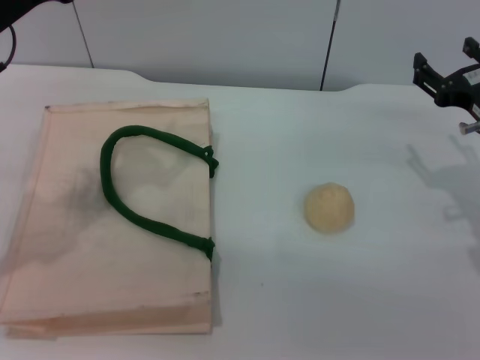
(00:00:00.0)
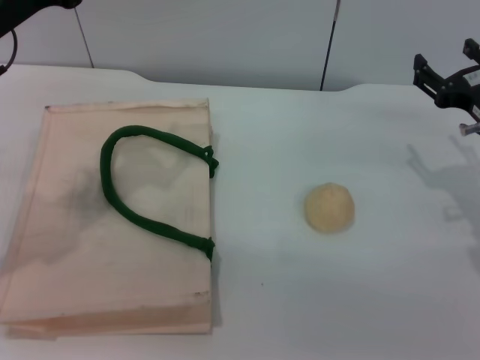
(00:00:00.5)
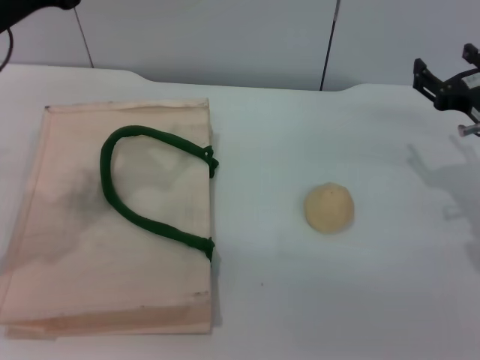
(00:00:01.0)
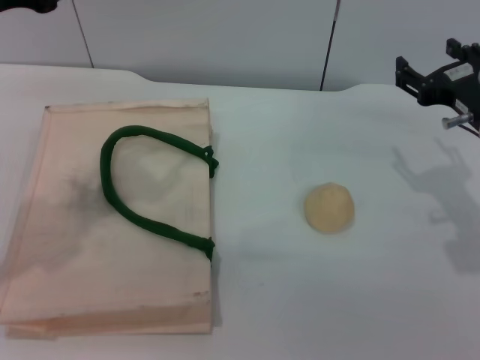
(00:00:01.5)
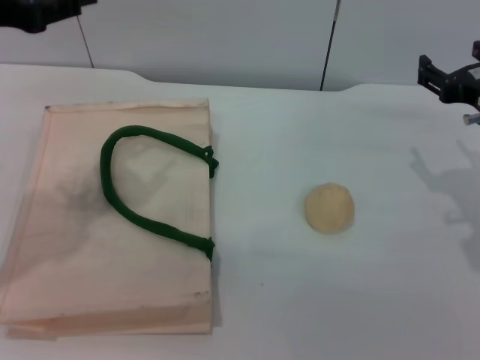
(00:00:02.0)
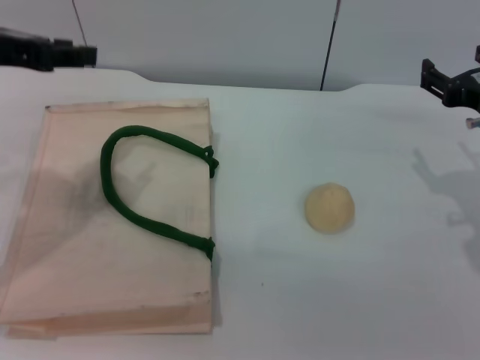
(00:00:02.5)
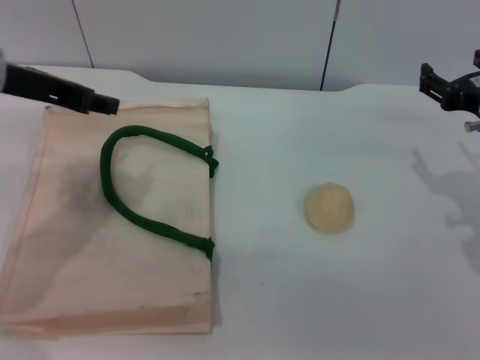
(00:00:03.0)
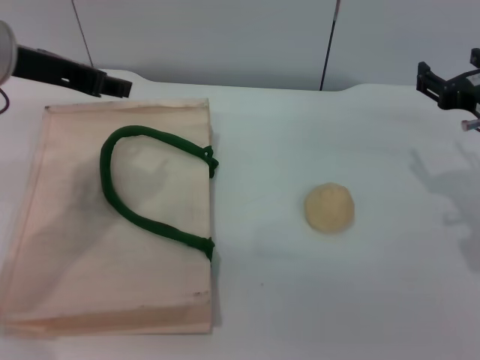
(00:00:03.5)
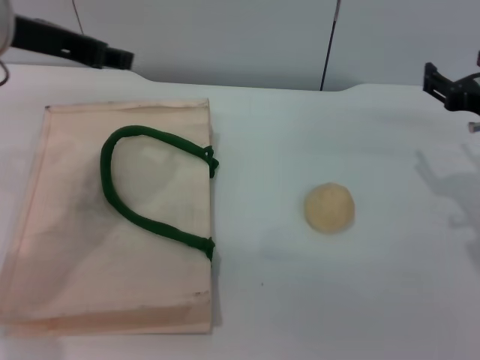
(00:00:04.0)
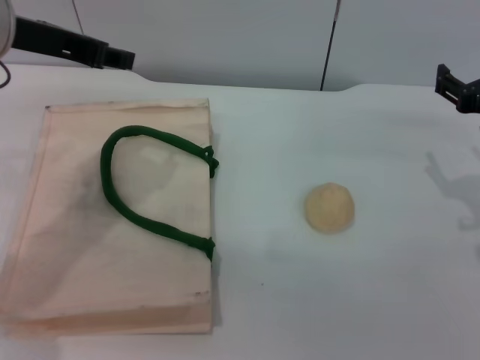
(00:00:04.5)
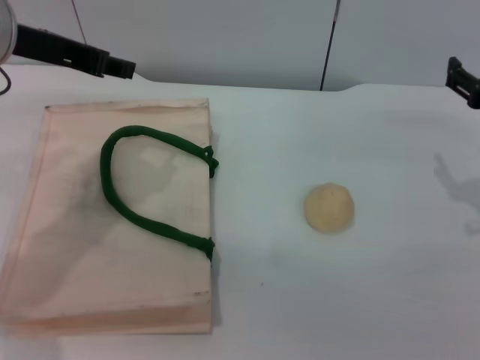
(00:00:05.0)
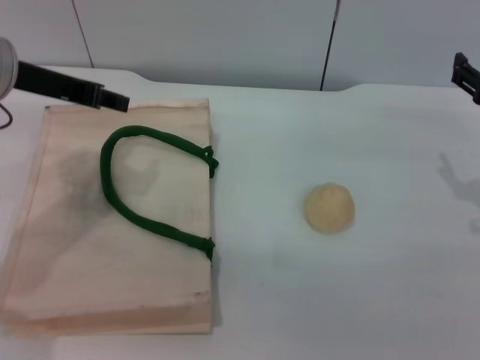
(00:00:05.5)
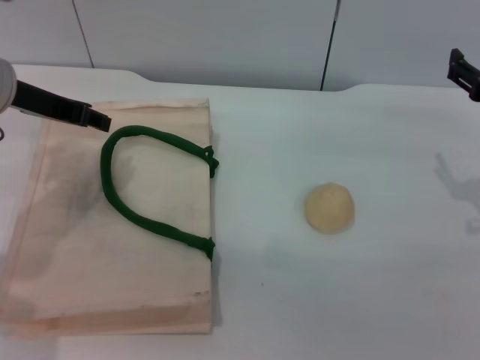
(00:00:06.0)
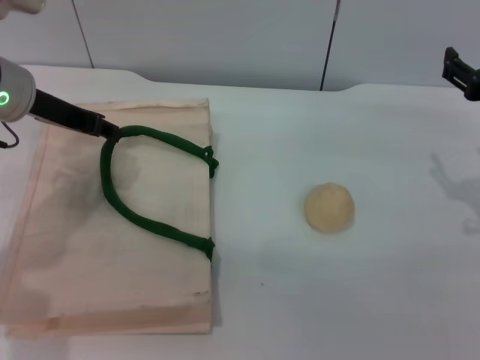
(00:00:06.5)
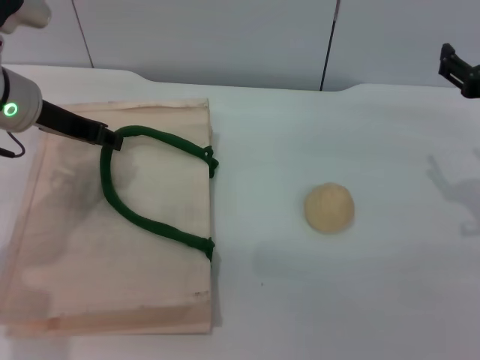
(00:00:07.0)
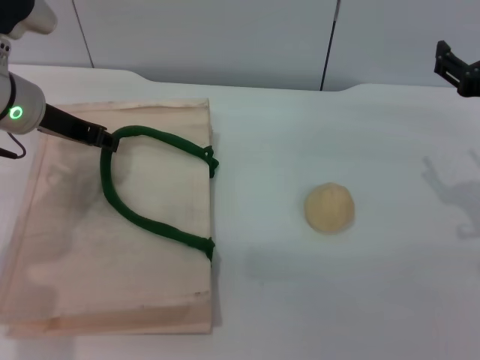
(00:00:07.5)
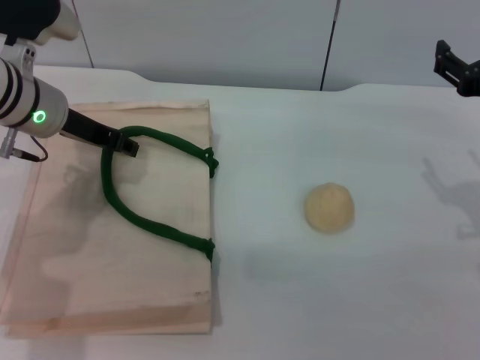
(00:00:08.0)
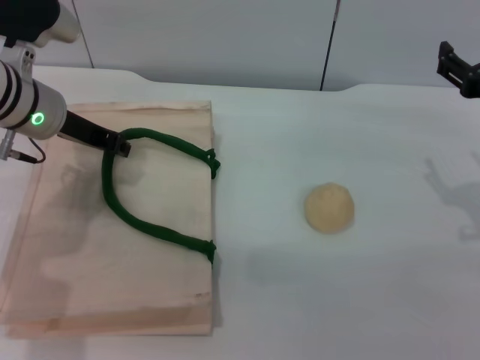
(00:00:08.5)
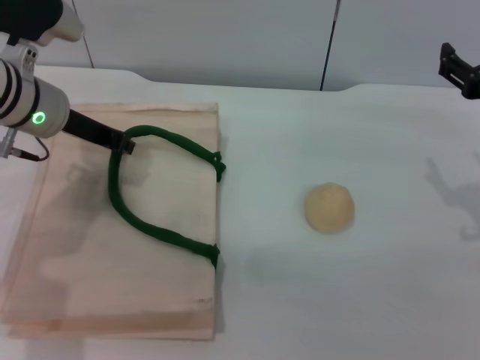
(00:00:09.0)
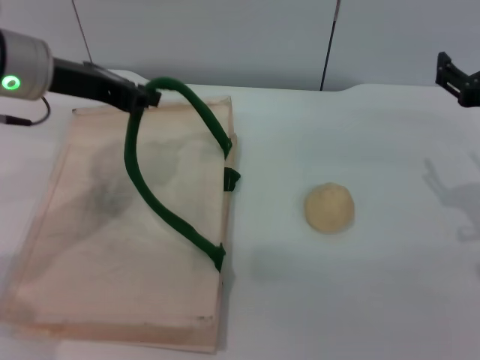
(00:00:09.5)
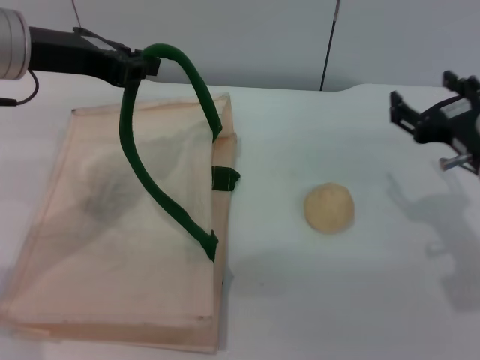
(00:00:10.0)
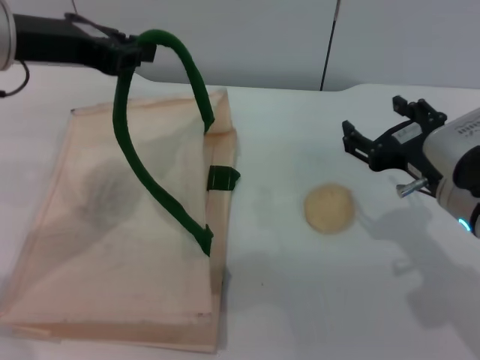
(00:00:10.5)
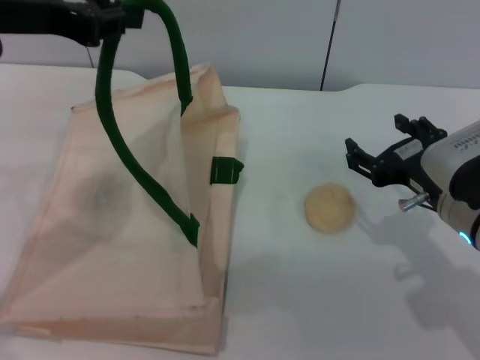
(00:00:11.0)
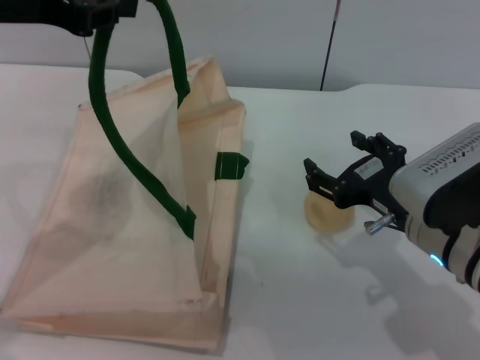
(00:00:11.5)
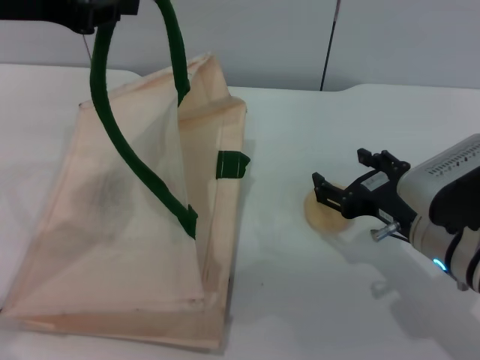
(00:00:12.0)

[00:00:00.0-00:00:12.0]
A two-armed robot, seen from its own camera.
Task of the whole recording: pick up the egg yolk pastry from the table and place it in the white handbag.
Step, 00:00:00.0 to 00:00:09.5: Lift the woven bag with the left gripper to open it.
00:00:00.0 to 00:00:02.0: The left gripper is displaced upward by some 5 cm.
00:00:02.0 to 00:00:04.0: The left gripper moves to the right, roughly 5 cm.
00:00:04.0 to 00:00:06.0: The left gripper travels downward by some 5 cm.
00:00:06.0 to 00:00:08.0: The left gripper moves approximately 5 cm.
00:00:08.0 to 00:00:10.0: The left gripper goes about 10 cm upward, and closes up.
00:00:10.0 to 00:00:12.0: The left gripper heads upward, covering roughly 5 cm. The right gripper moves roughly 5 cm.

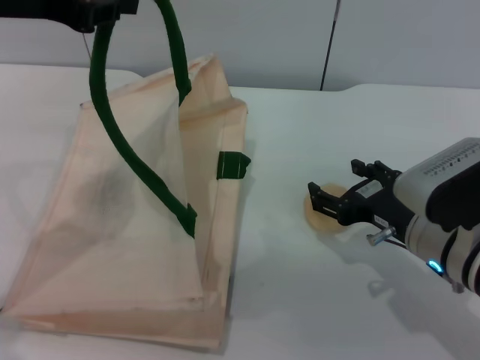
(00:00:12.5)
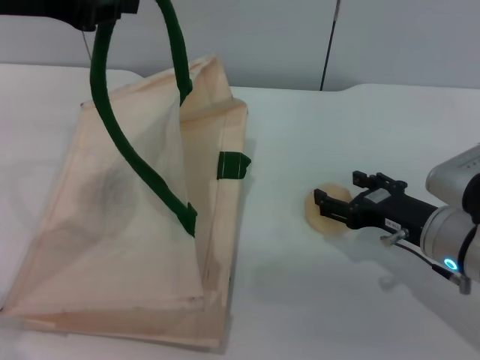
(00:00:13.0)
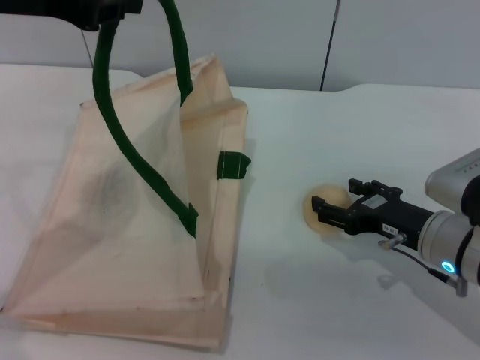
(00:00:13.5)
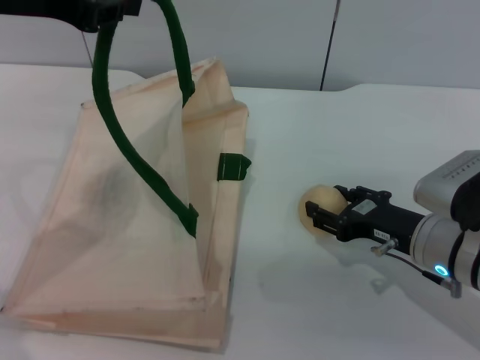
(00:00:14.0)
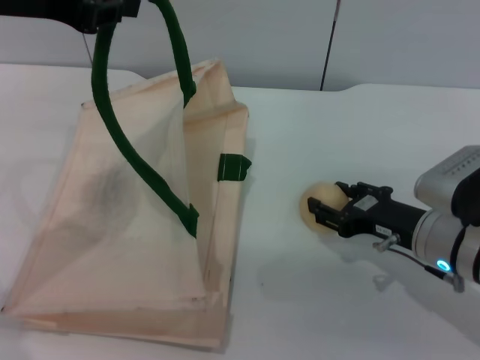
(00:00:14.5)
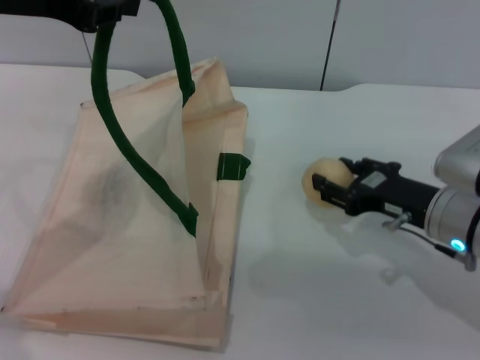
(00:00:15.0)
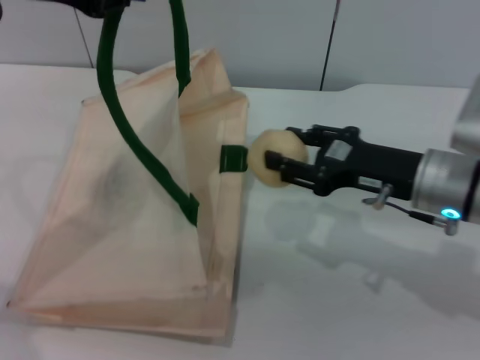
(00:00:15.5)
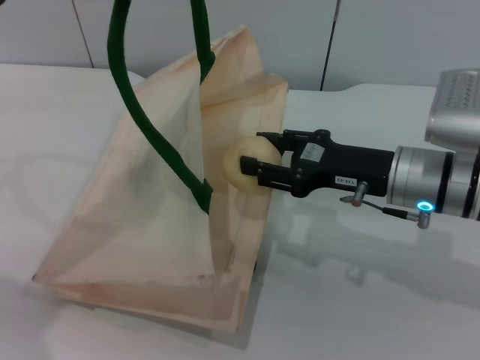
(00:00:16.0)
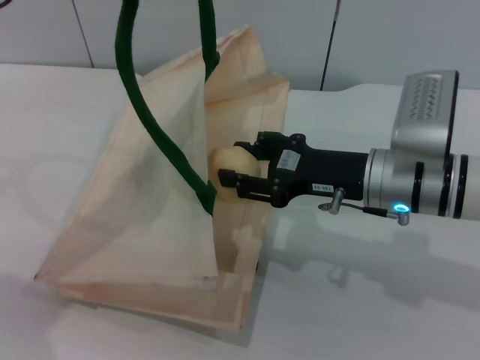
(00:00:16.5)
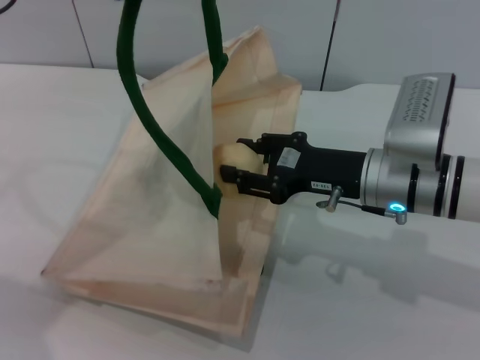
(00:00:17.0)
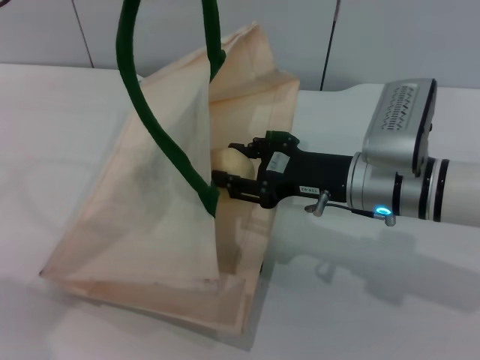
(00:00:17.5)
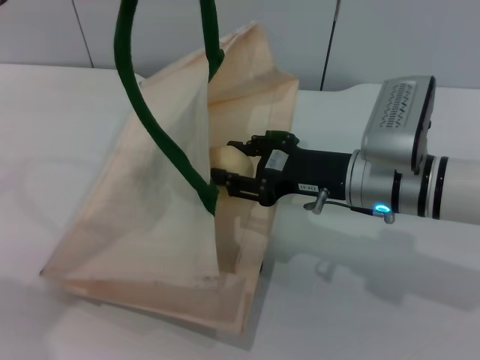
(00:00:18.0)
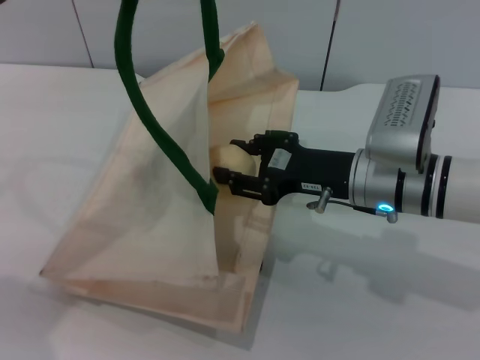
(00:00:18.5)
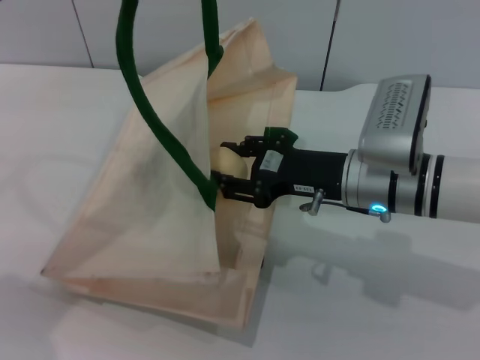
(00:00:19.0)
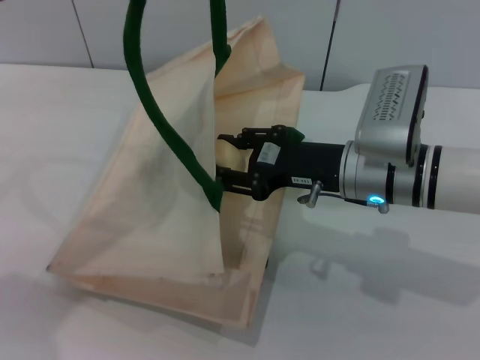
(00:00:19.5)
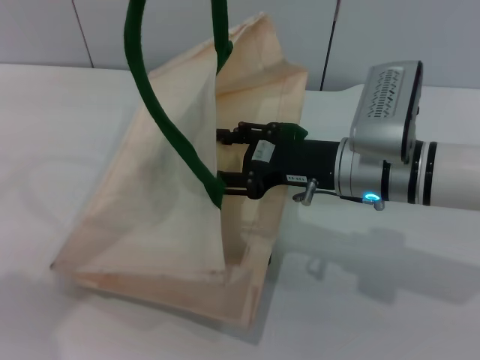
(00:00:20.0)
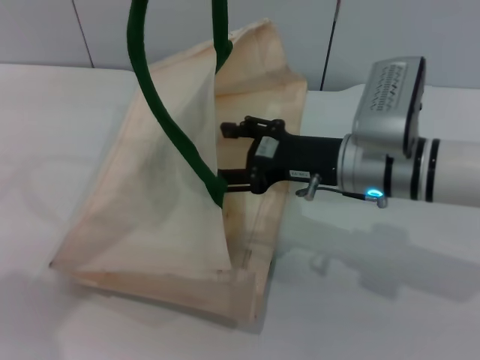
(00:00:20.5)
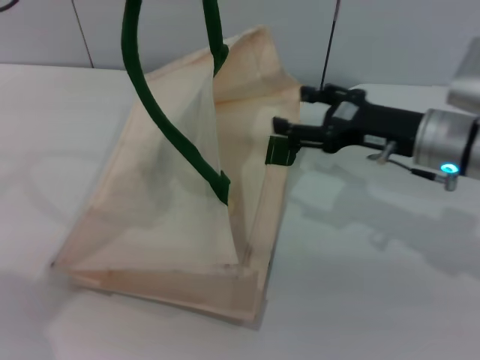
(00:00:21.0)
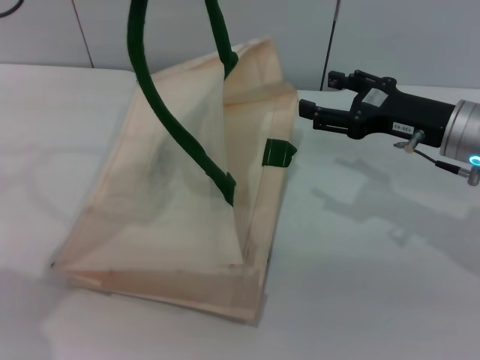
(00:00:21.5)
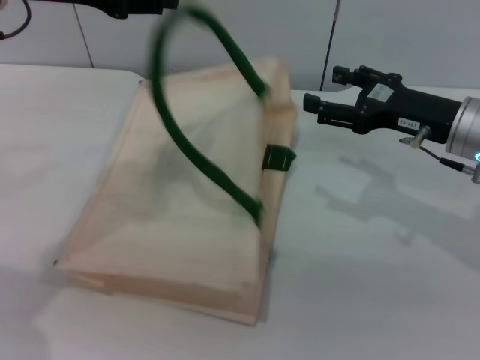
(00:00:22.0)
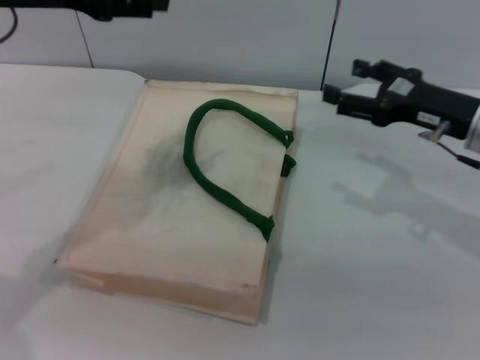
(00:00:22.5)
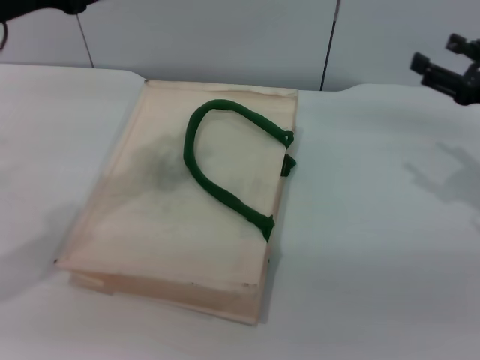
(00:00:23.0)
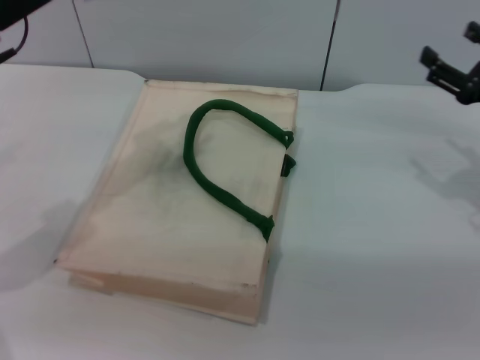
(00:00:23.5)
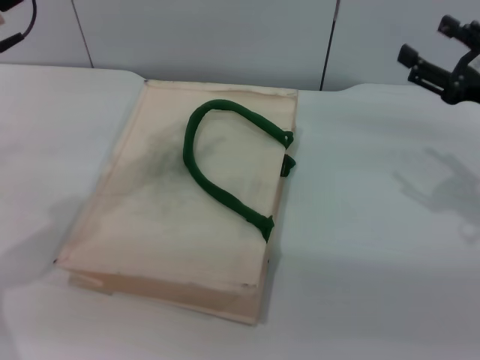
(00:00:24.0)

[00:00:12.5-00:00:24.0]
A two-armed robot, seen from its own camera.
Task of the whole recording: pick up the egg yolk pastry from the table and place it in the white handbag.
Step, 00:00:12.5 to 00:00:15.0: Pick up the egg yolk pastry with the right gripper.
Step, 00:00:15.5 to 00:00:20.0: Place the egg yolk pastry into the woven bag with the right gripper.
Step, 00:00:20.5 to 00:00:22.0: Lower the woven bag with the left gripper to close it.
00:00:12.5 to 00:00:14.5: The right gripper closes its fingers.
00:00:14.5 to 00:00:16.5: The right gripper shifts about 5 cm to the left.
00:00:16.5 to 00:00:20.0: There are only small adjustments of the grippers.
00:00:20.0 to 00:00:22.0: The right gripper is displaced to the right by roughly 10 cm, and opens up. The left gripper opens.
00:00:22.0 to 00:00:24.0: The left gripper goes roughly 5 cm downward. Meanwhile the right gripper heads to the right, covering about 5 cm.
